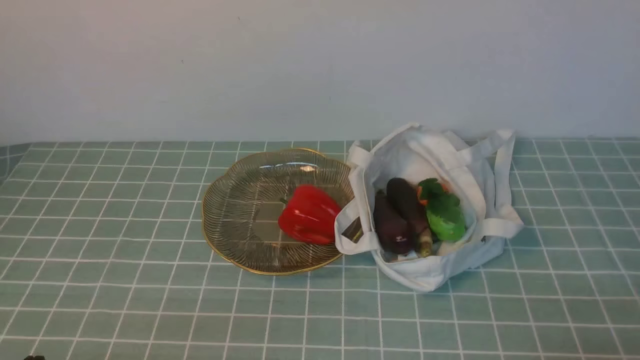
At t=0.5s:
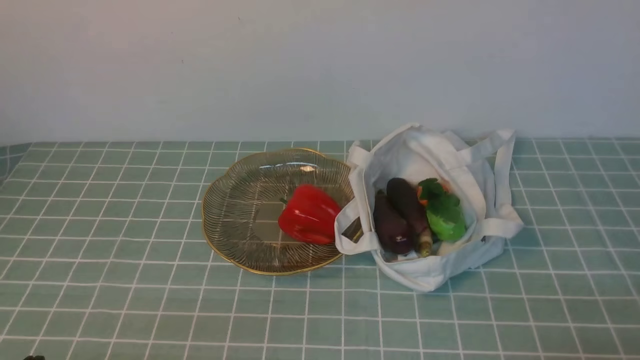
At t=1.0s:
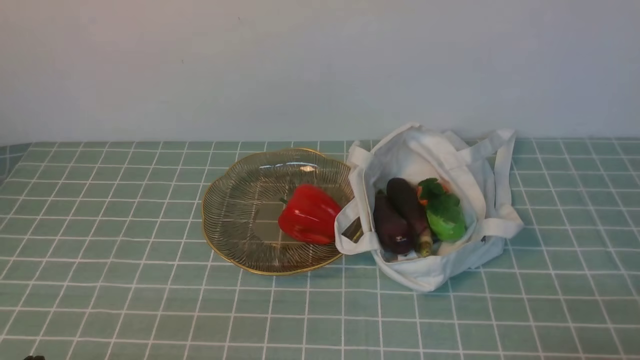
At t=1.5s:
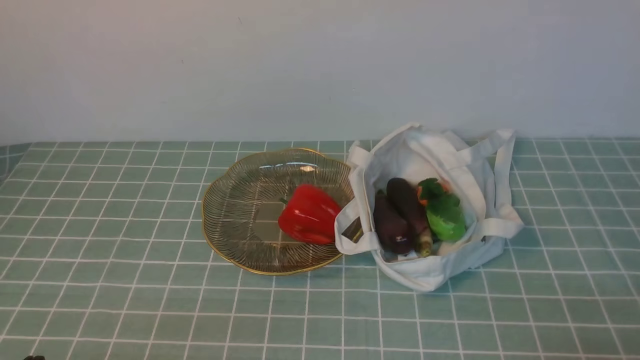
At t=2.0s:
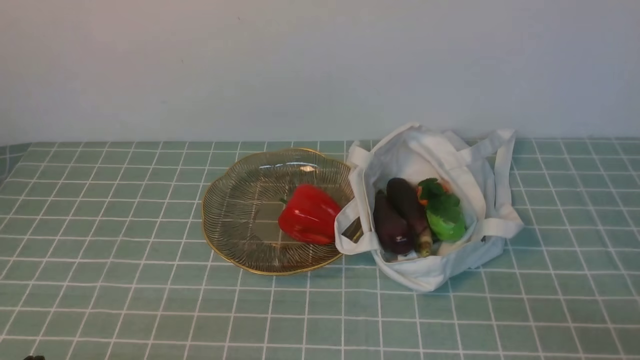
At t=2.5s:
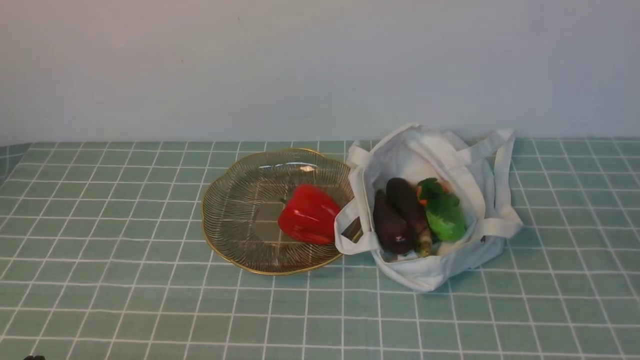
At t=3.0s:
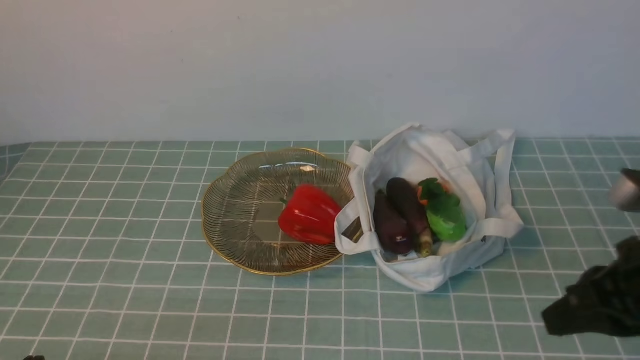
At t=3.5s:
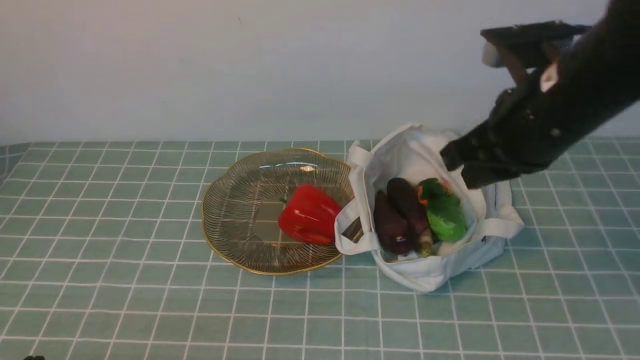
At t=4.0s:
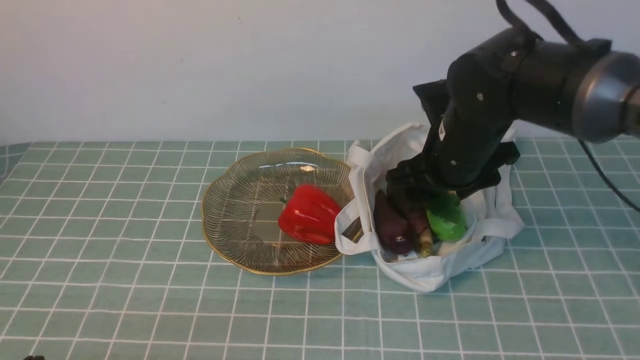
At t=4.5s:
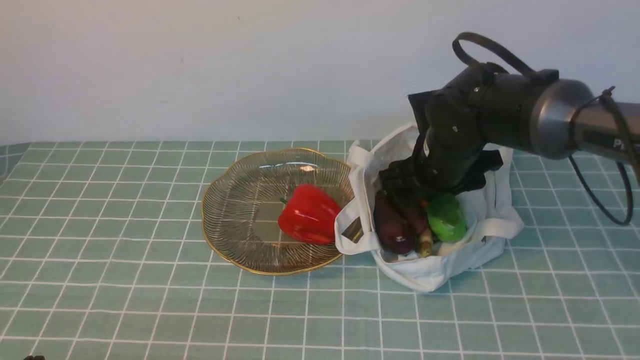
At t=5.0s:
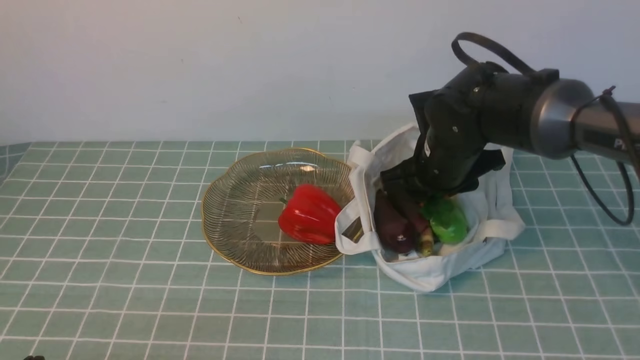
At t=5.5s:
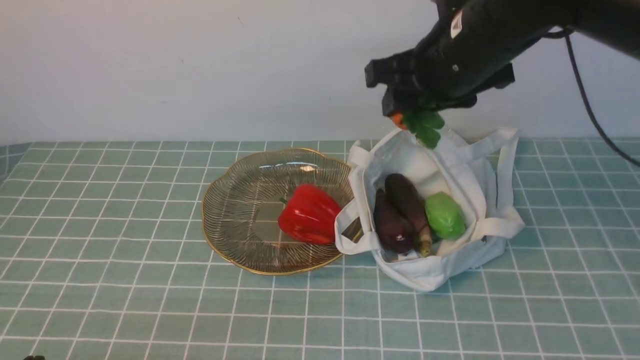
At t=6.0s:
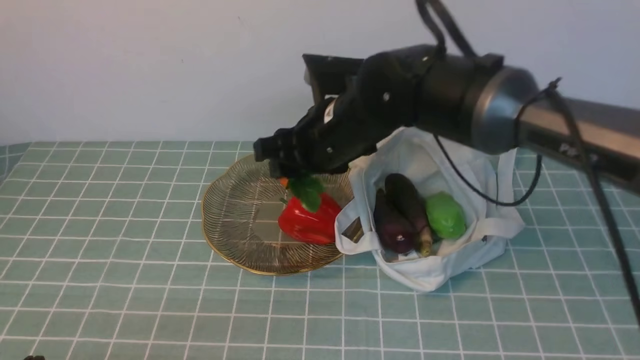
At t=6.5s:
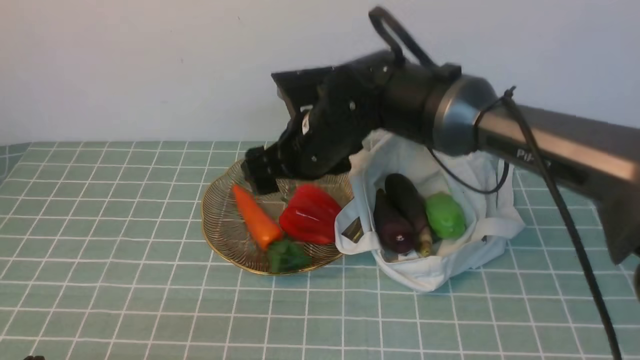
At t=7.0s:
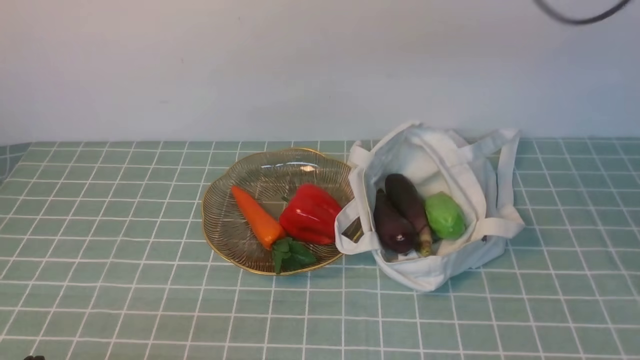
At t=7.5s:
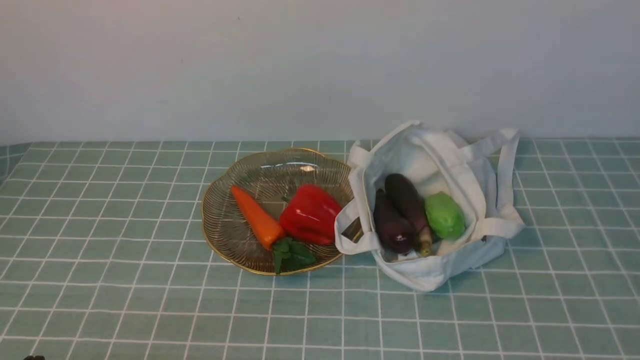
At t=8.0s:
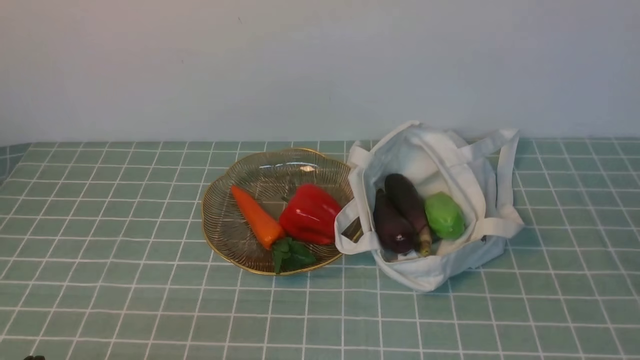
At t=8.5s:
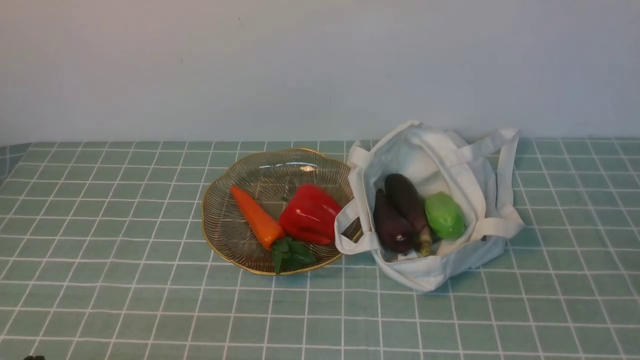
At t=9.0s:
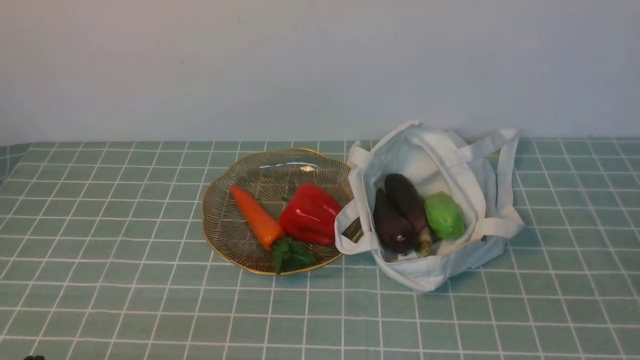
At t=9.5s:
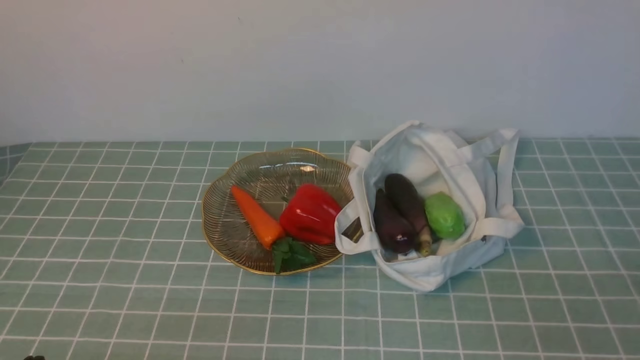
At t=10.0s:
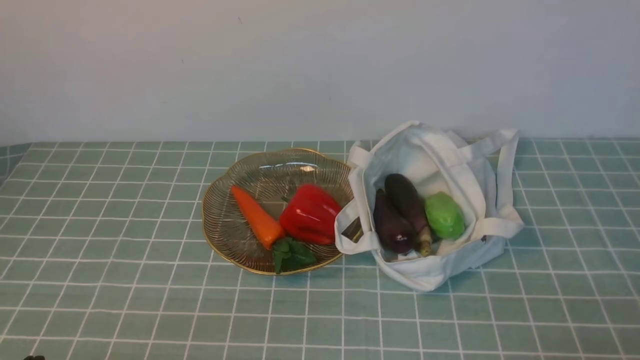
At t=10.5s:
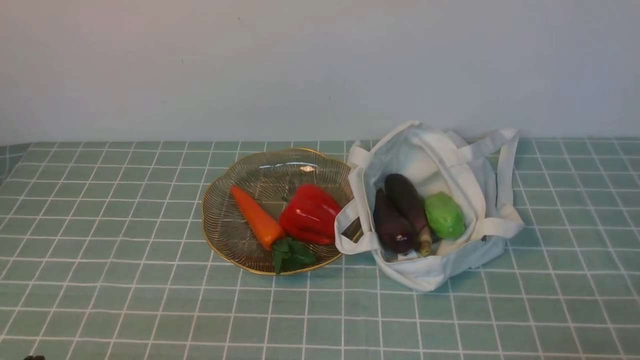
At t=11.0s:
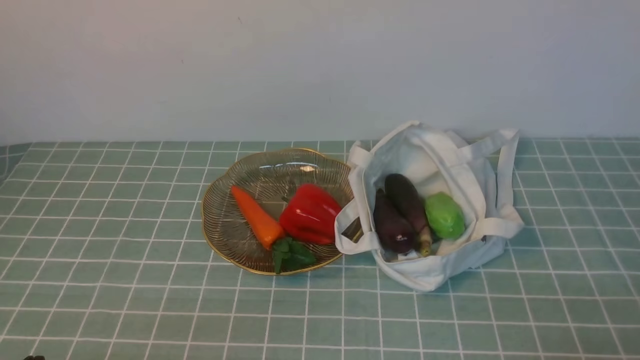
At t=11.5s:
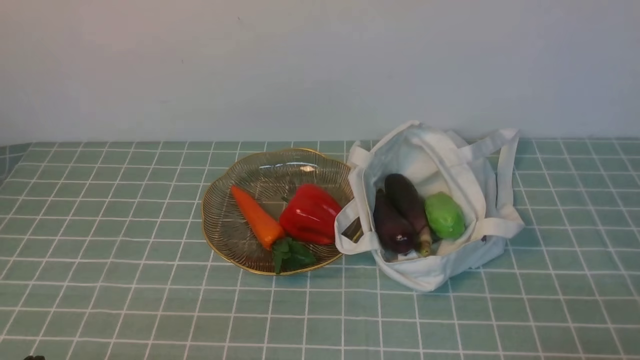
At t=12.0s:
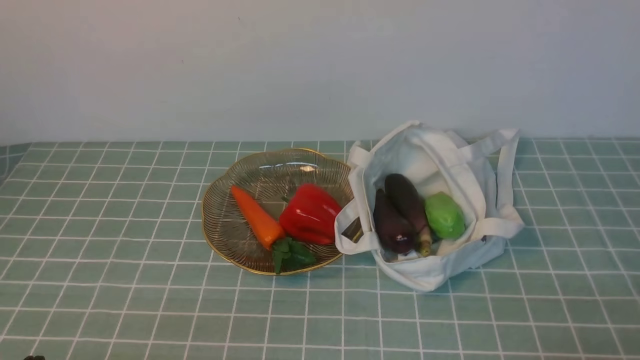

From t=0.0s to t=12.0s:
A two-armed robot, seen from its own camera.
Task of the whole recording: take vegetables from cloth bag on blue coffee tablecloth place on plate.
Step, from t=0.0s to t=4.5s: Grasp the radish with right gripper.
Step, from t=5.0s to t=6.5s: Place the radish on the plate with right gripper.
From t=2.0s to t=4.0s: The right gripper goes approximately 35 cm forward and to the left, and opens up.
From t=4.0s to t=6.0s: The right gripper goes up and down, approximately 10 cm each way, reversing 2 times.
From t=6.0s to t=8.0s: The right gripper moves backward and to the right, approximately 40 cm, and closes up.
From t=10.0s to t=12.0s: The two grippers keep their place.
